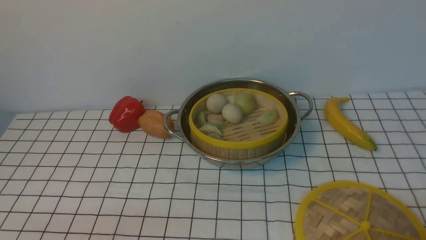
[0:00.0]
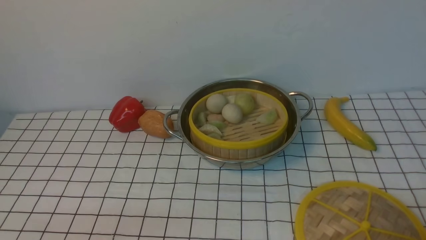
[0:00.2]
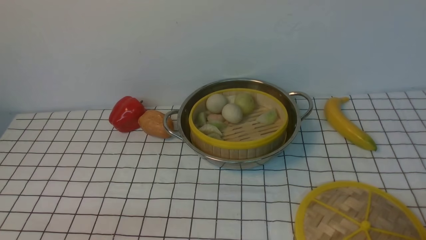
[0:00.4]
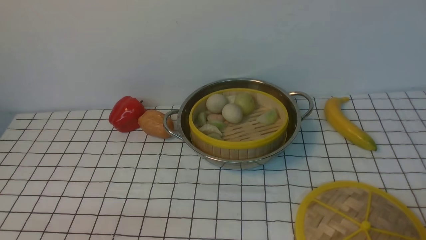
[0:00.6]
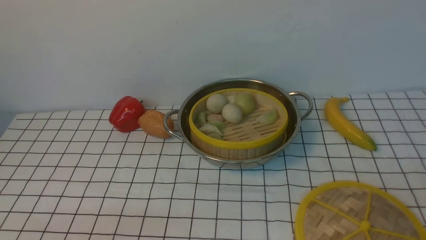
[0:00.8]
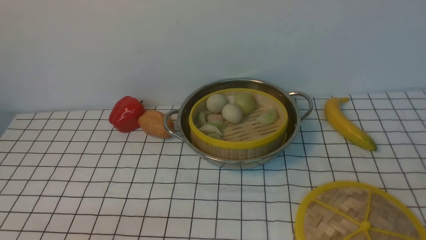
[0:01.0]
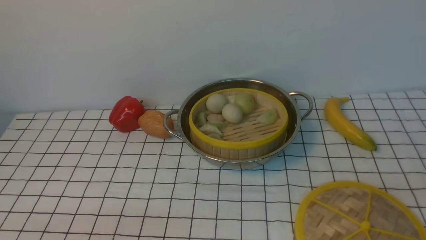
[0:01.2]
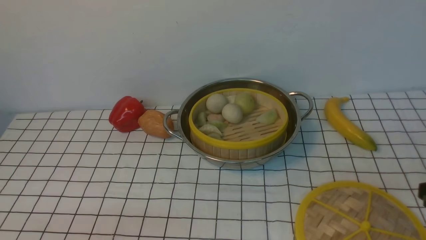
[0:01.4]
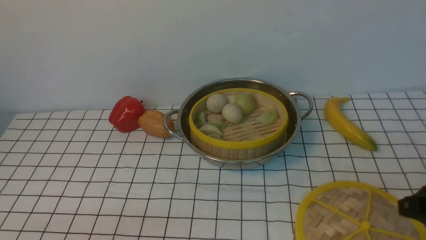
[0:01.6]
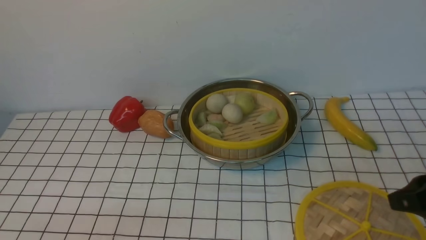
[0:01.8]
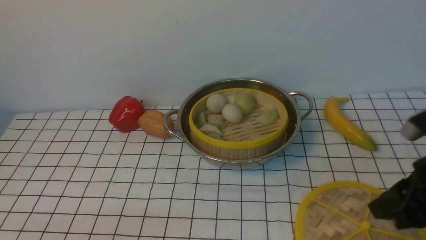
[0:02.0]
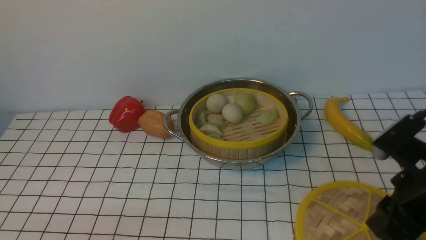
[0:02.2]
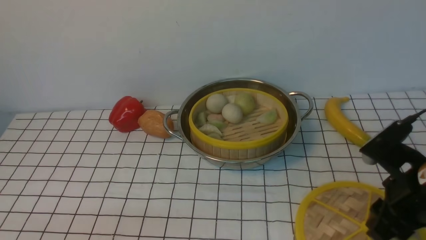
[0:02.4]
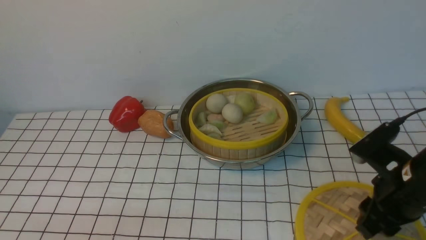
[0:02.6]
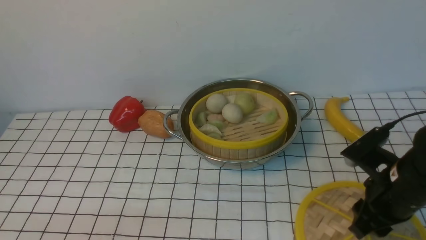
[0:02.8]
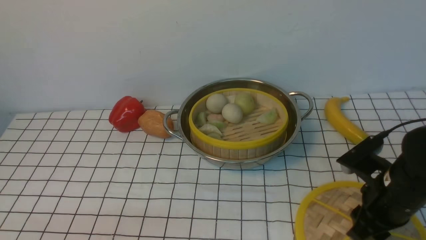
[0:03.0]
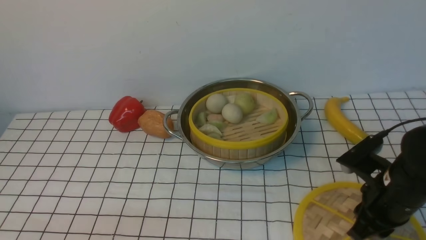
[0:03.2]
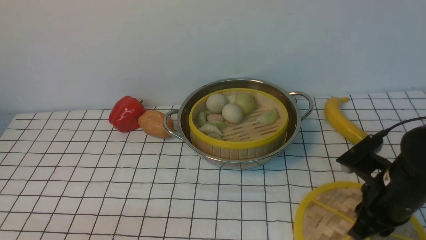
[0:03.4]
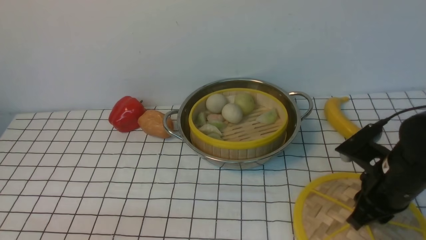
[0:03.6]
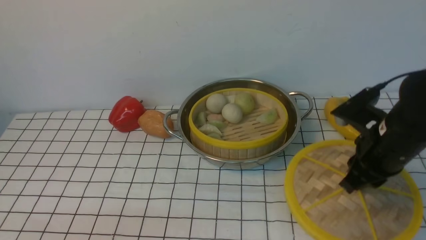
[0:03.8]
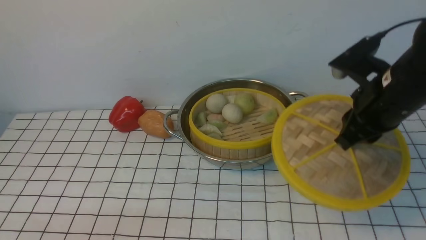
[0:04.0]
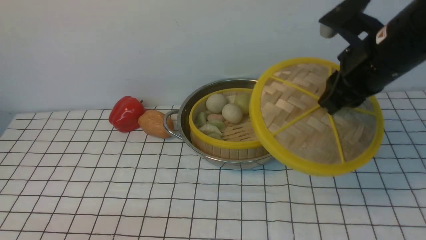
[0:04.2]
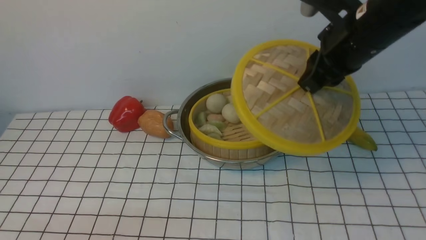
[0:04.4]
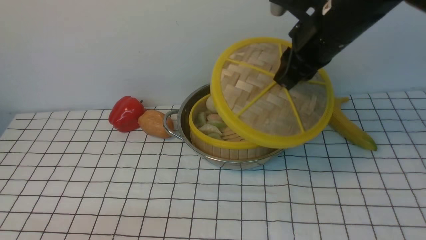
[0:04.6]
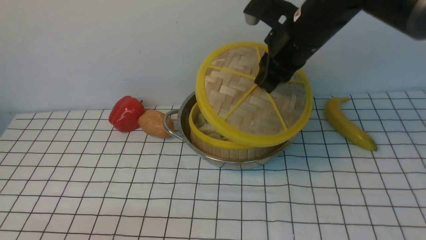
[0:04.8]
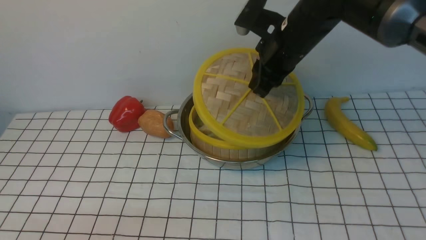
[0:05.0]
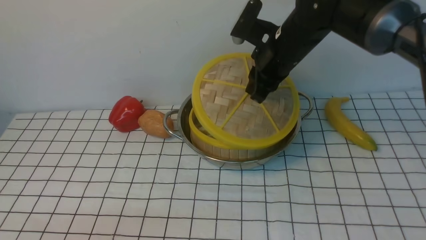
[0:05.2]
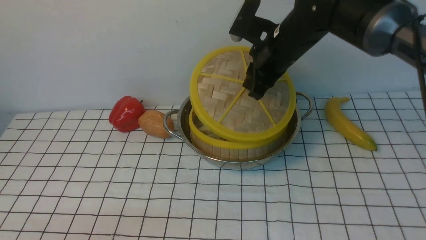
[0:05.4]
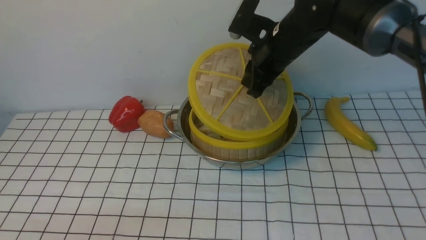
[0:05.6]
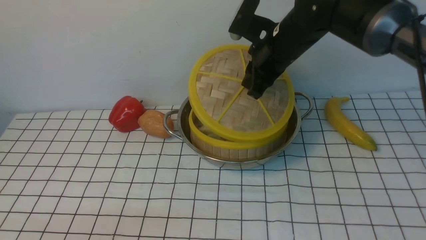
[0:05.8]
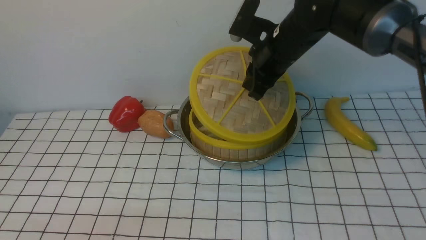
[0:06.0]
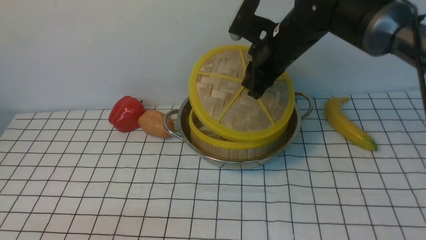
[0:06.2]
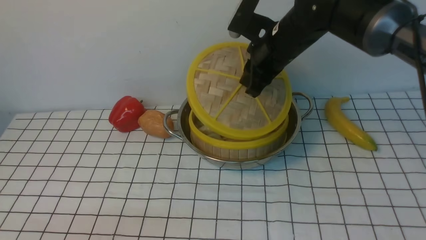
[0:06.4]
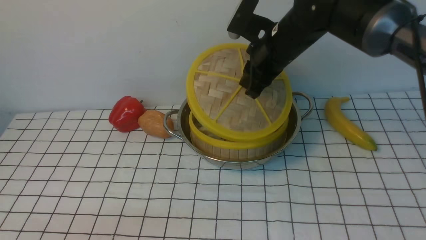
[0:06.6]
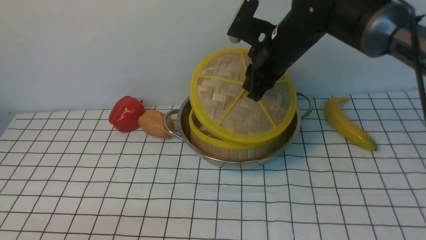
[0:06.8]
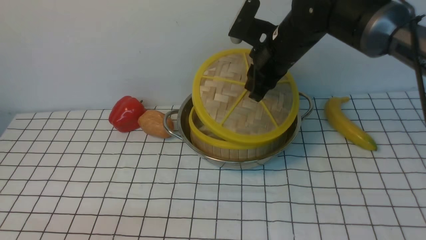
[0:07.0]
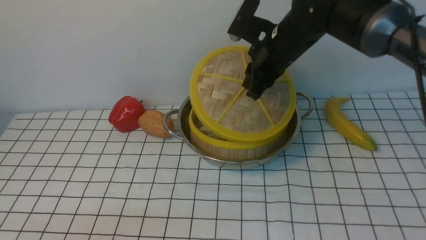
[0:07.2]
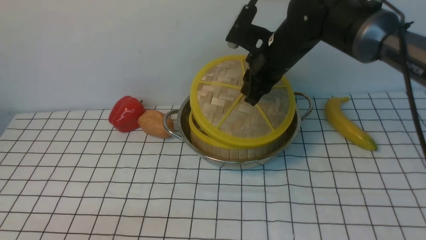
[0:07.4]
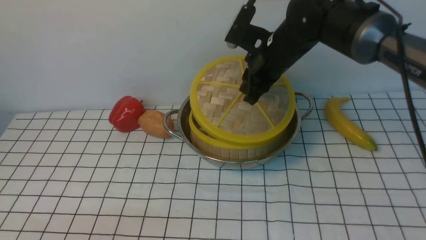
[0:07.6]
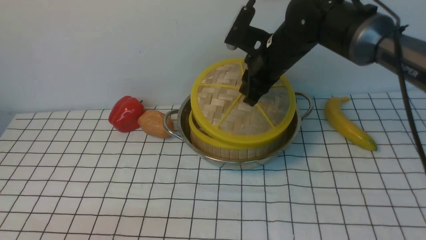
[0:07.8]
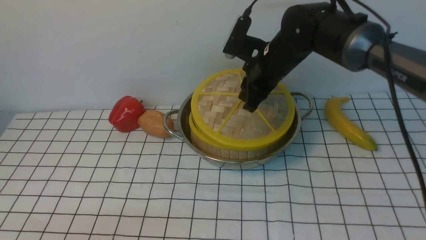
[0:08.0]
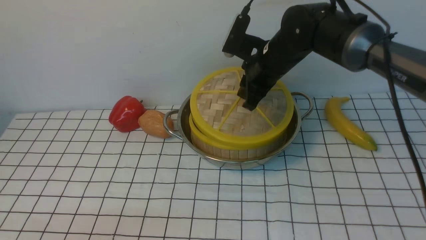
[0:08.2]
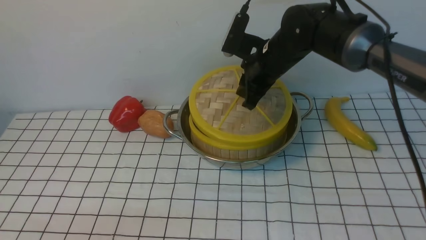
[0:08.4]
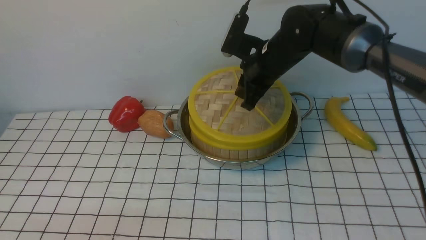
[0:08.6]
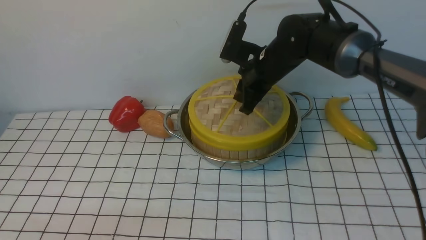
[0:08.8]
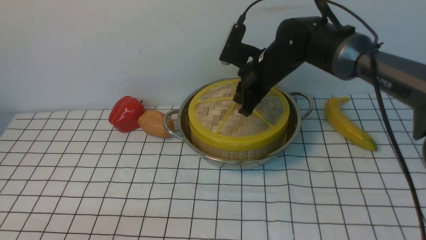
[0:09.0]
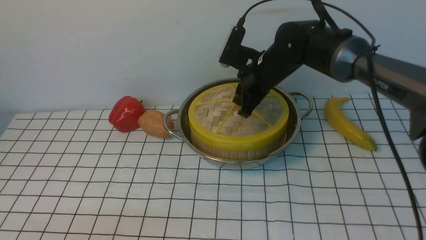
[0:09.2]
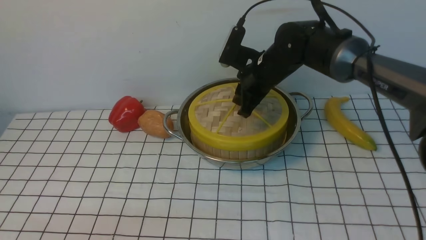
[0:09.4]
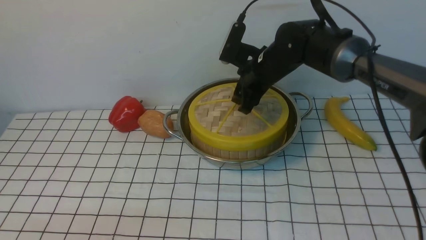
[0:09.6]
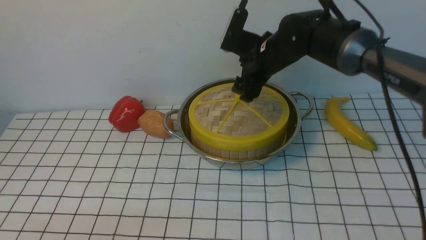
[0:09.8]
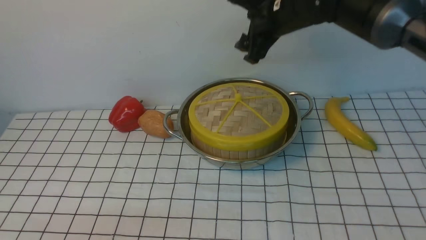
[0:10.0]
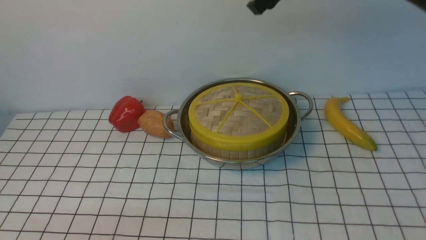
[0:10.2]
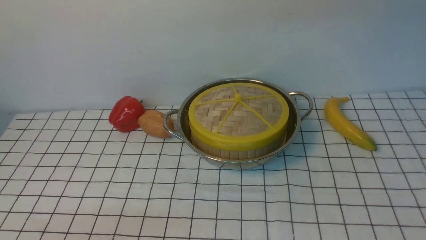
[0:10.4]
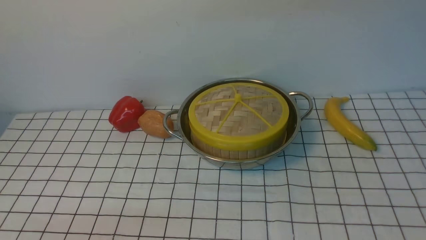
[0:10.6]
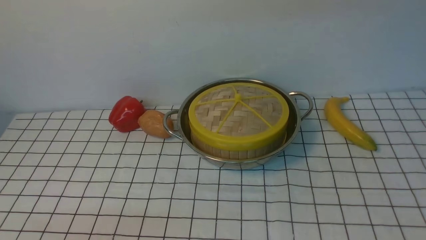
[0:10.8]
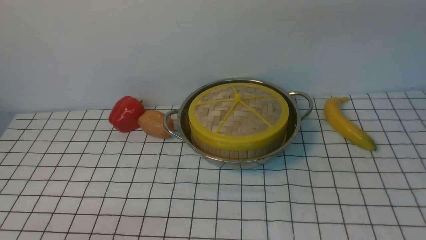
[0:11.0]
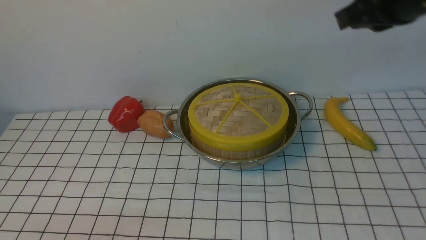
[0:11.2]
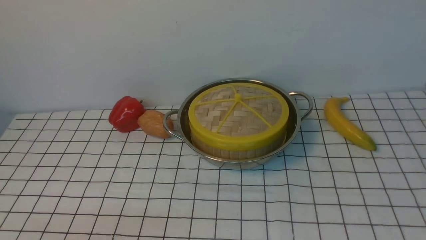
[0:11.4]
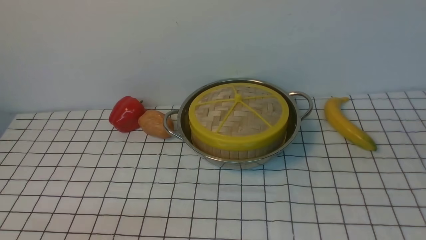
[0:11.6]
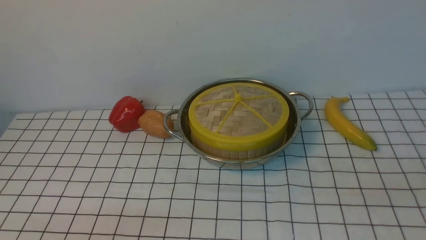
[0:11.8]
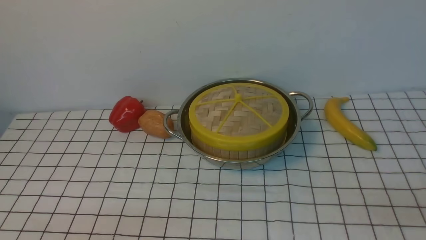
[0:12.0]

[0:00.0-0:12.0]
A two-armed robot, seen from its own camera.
Task of the whole recording: place the steamer in the pot on the white tablecloth, and put the lid on the steamer.
Step, 0:00.0 to 0:03.6: use the right arm to lift the lid of the steamer.
Step, 0:03.8 to 0:09.8: use the right arm to place the steamer lid on the steamer.
0:00.0 to 0:01.6: The right gripper is displaced forward and upward by about 15 cm.
0:01.6 to 0:03.0: The right gripper goes about 10 cm to the left, forward and downward.
0:03.0 to 0:04.4: The right gripper is displaced upward and forward by approximately 20 cm, and closes up.
0:04.4 to 0:06.0: The right gripper moves forward, to the left and downward, approximately 10 cm.
0:06.0 to 0:07.6: The grippers stay close to where they were, moving slightly.
0:07.6 to 0:09.0: The grippers stay close to where they were, moving slightly.
0:09.0 to 0:10.4: The right gripper shifts about 25 cm upward, and opens, then closes once more.

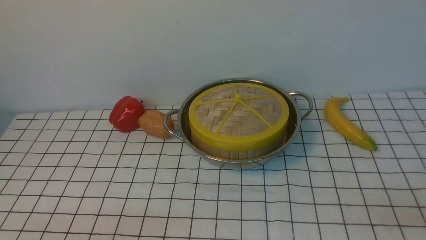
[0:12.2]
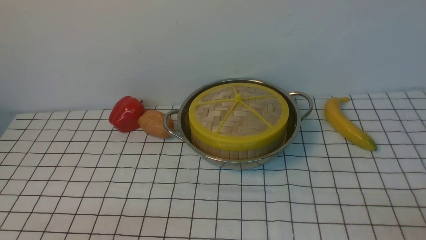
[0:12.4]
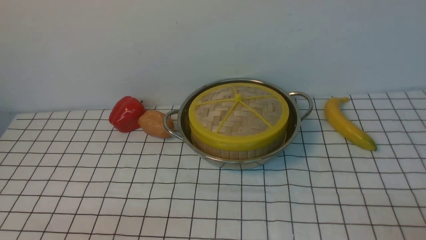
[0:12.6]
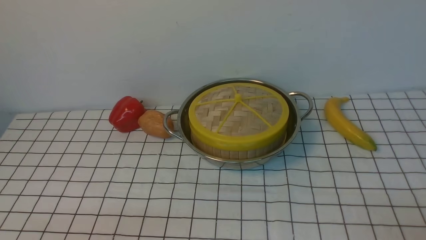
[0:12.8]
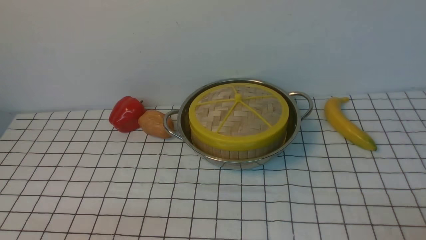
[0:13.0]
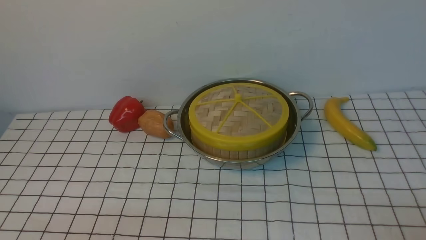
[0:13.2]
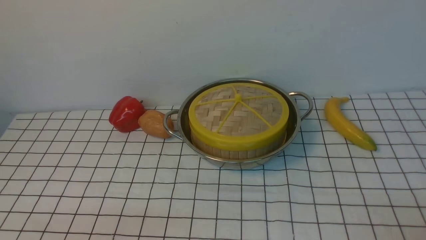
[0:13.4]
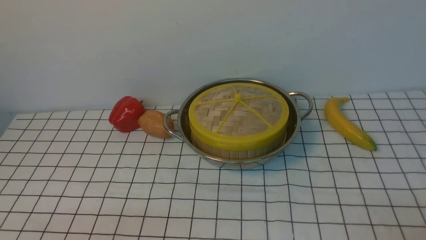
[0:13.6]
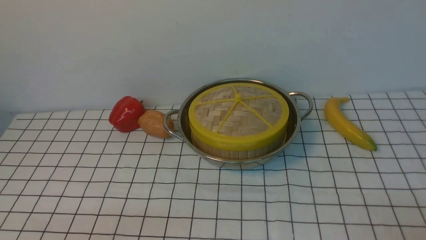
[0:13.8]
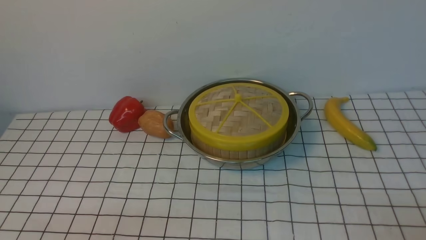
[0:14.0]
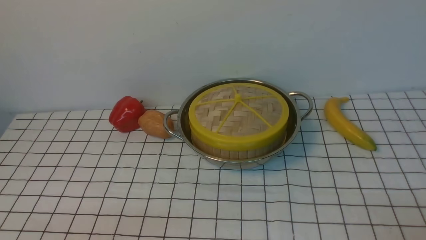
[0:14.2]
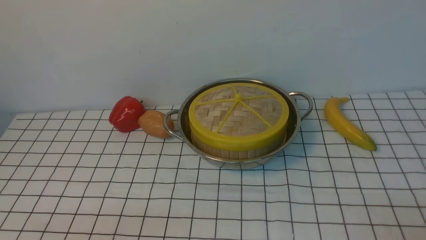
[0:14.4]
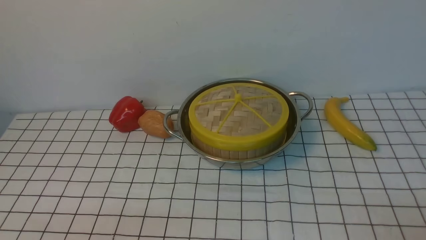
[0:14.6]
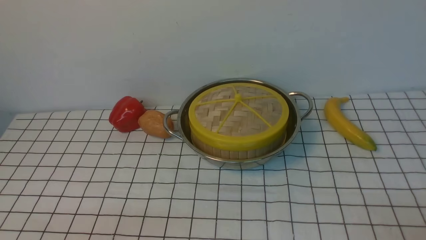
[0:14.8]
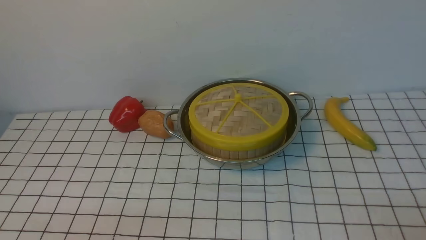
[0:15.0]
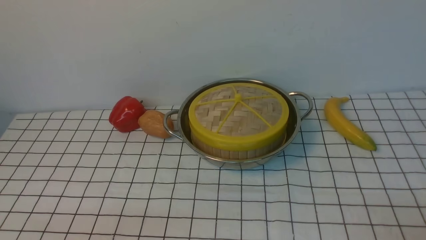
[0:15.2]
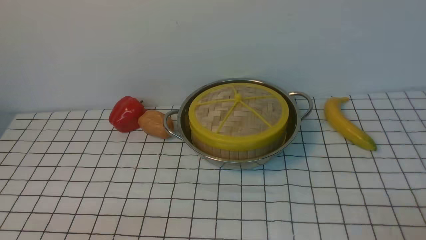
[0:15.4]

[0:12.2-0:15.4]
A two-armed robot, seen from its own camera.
Task of the whole recording: place the steamer in the pot on the white tablecloth, and put the lid on the steamer.
0:13.8 to 0:15.4: Both grippers stay about where they are.
